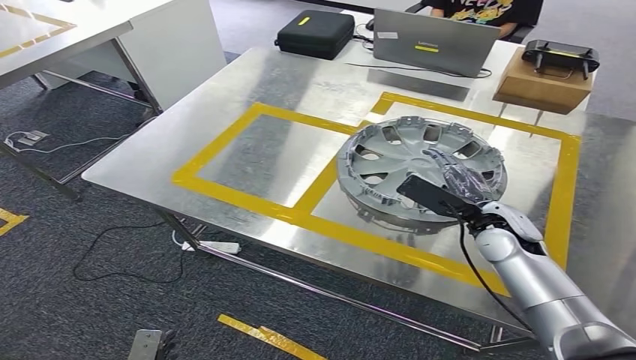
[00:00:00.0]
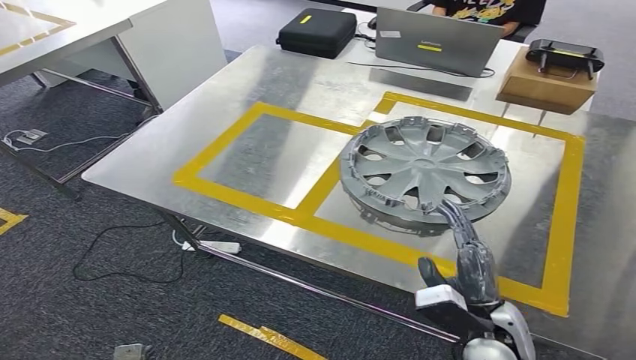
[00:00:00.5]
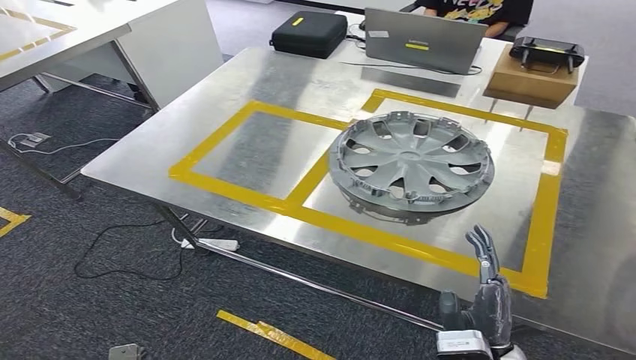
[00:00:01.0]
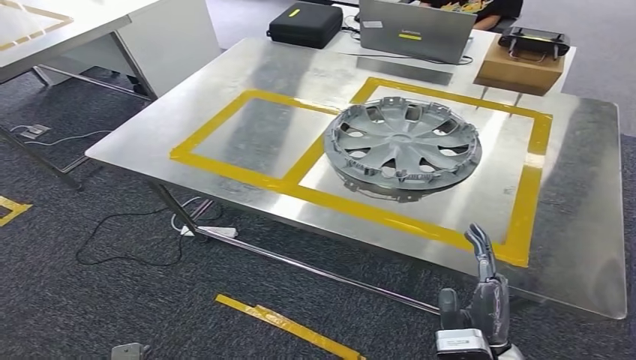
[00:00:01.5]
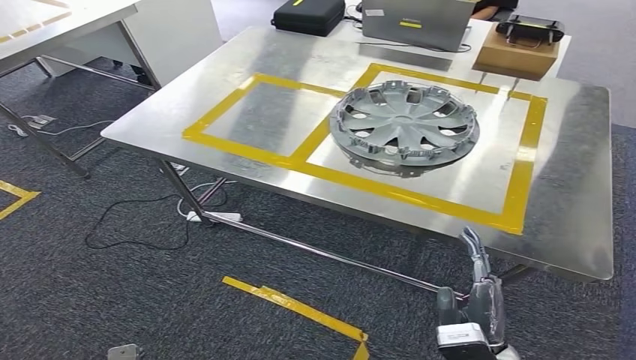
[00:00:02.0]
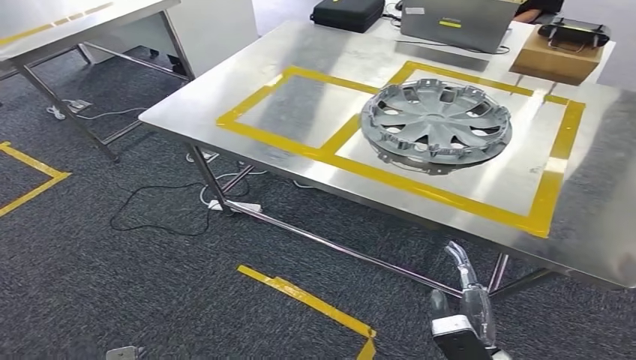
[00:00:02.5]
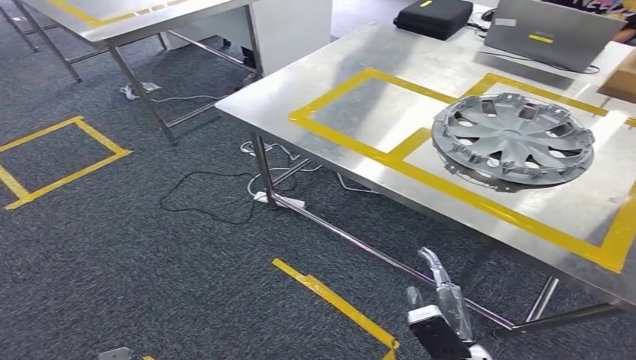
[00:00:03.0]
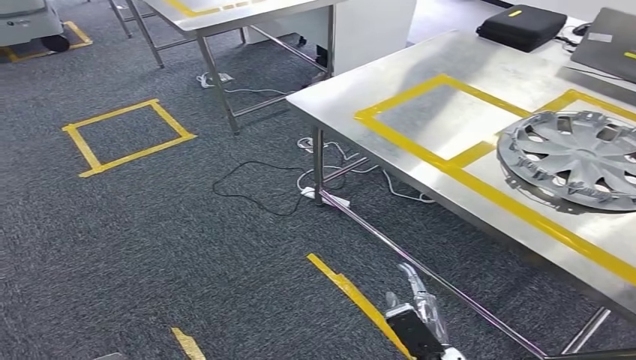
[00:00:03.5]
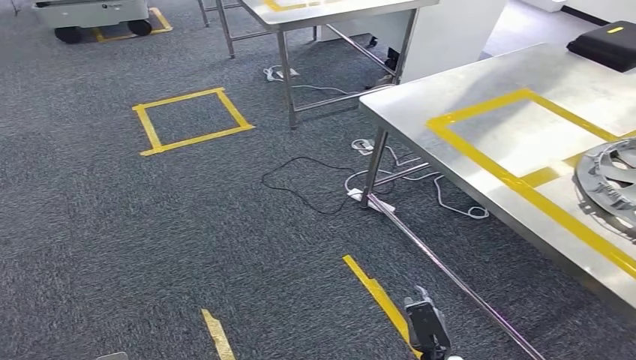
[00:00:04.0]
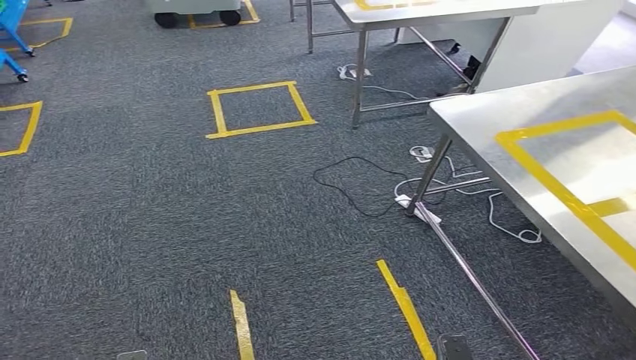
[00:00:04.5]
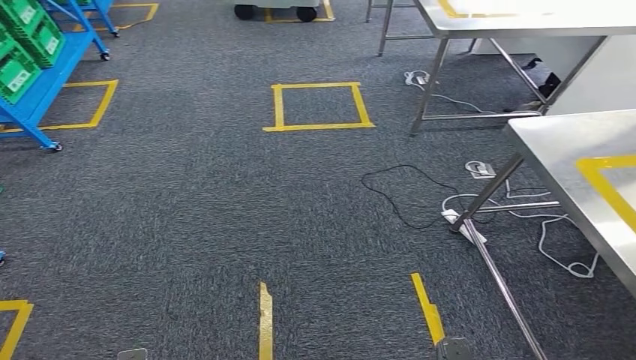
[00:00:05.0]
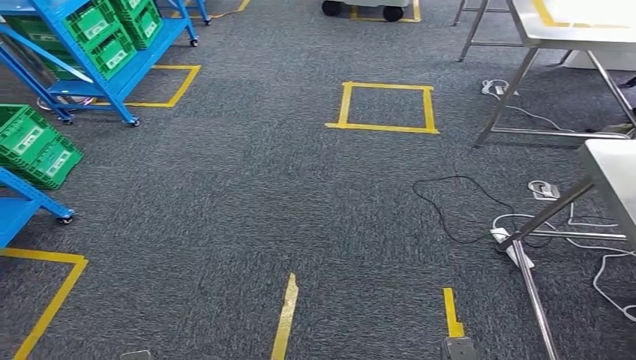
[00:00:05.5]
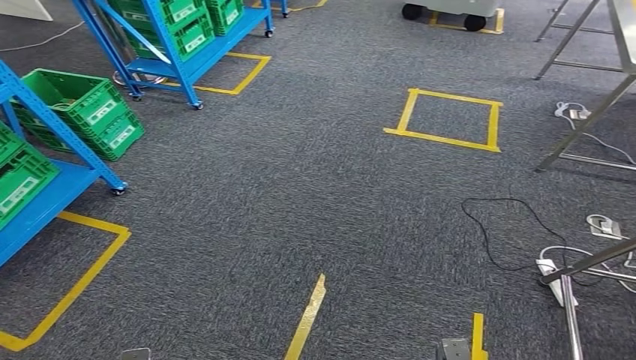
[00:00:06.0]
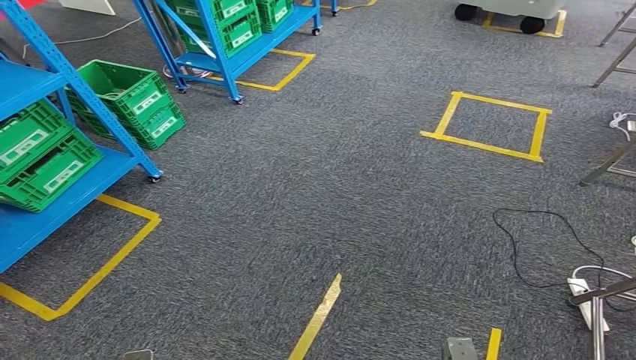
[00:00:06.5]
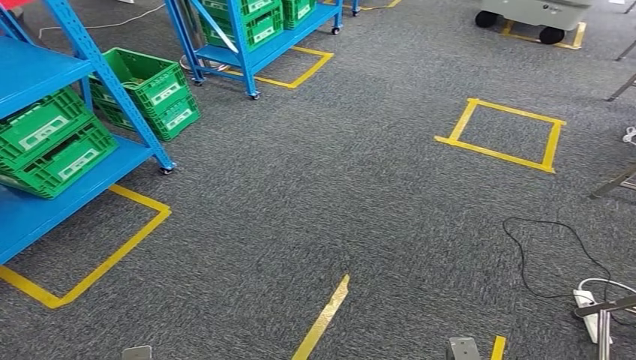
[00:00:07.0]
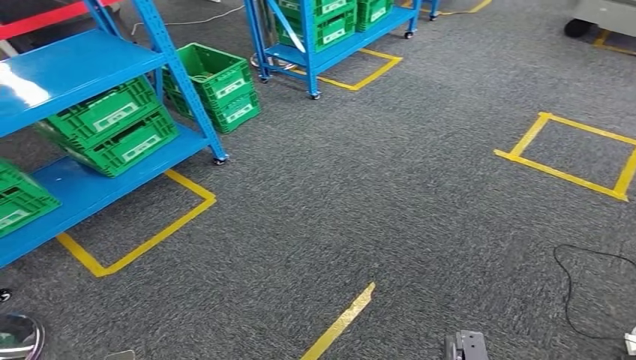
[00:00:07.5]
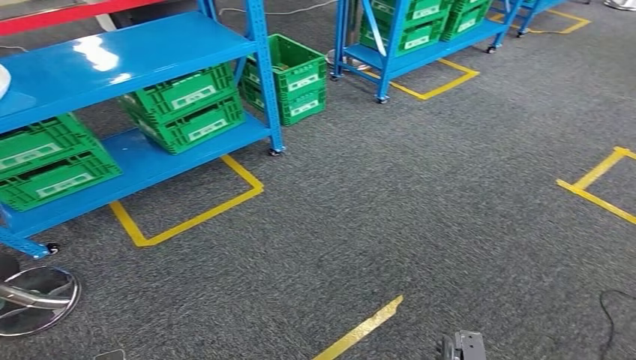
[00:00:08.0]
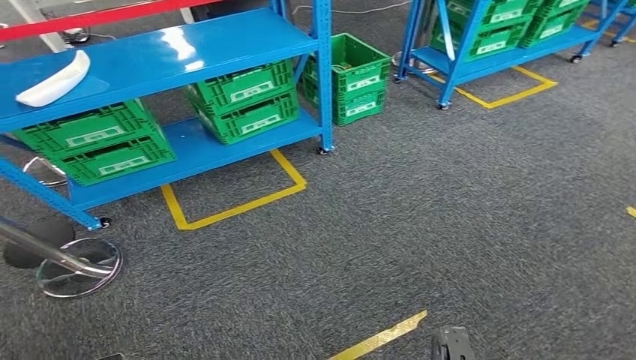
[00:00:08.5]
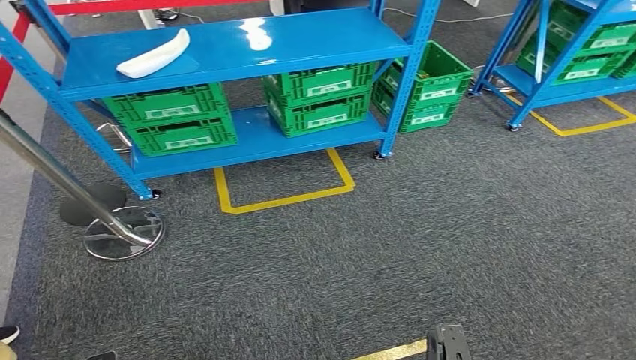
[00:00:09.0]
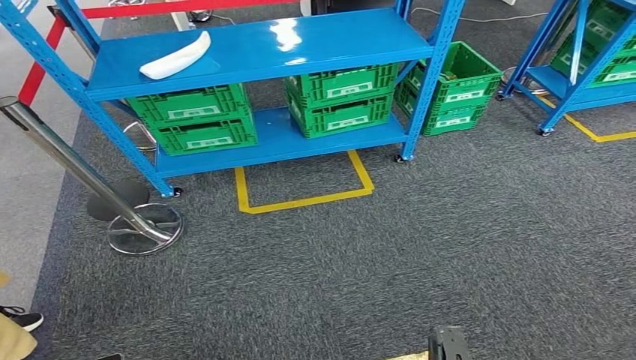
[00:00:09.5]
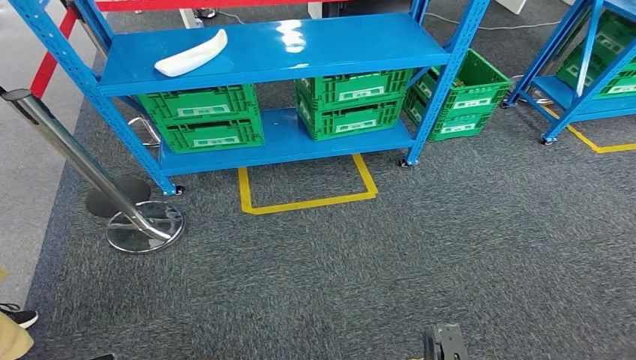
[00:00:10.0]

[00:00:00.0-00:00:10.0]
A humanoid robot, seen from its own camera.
Step, 00:00:00.5 to 00:00:10.0: Return to the initial position at the workbench.
